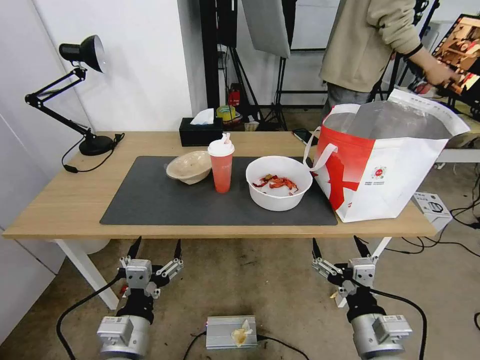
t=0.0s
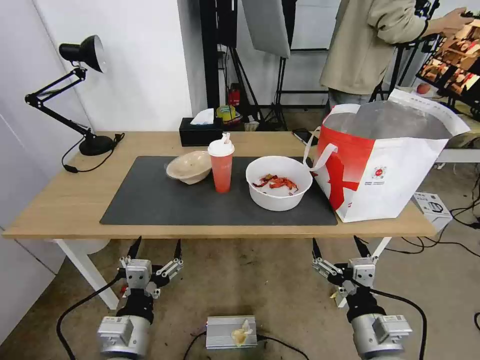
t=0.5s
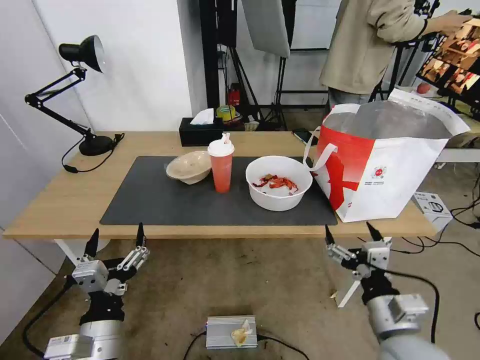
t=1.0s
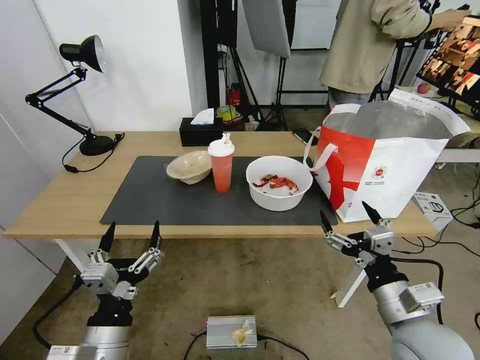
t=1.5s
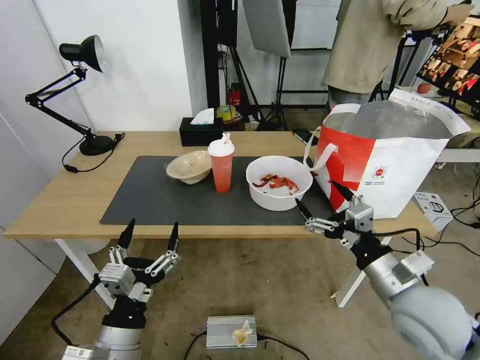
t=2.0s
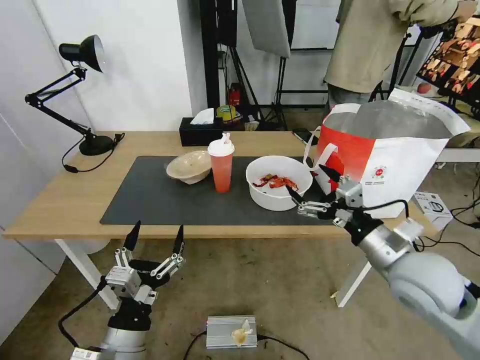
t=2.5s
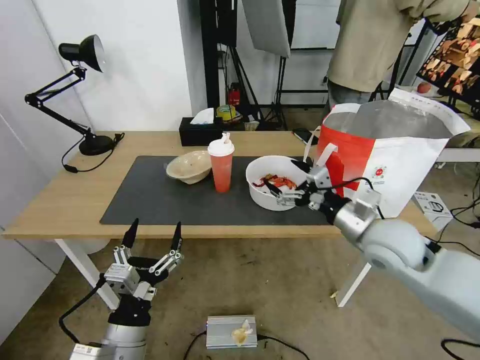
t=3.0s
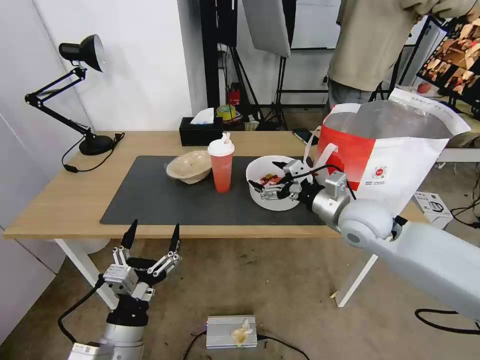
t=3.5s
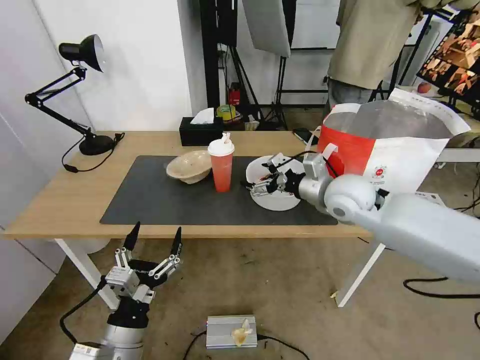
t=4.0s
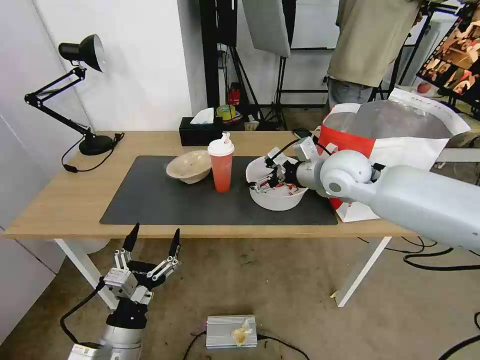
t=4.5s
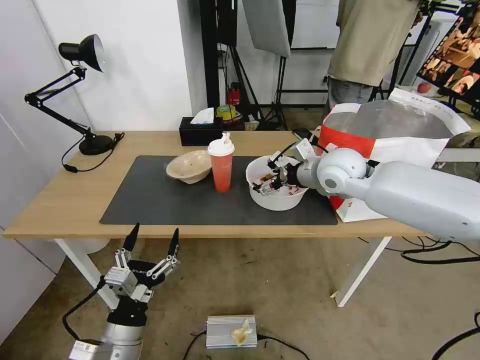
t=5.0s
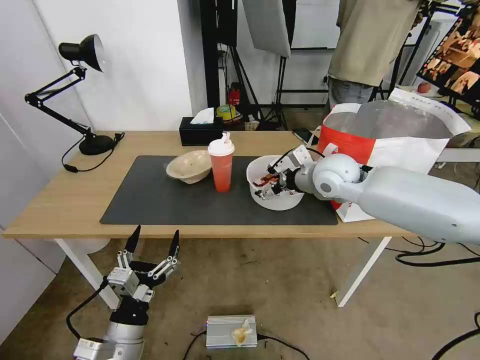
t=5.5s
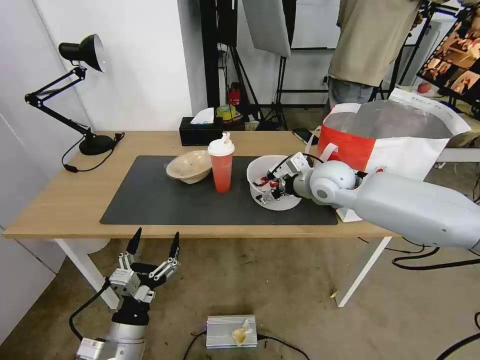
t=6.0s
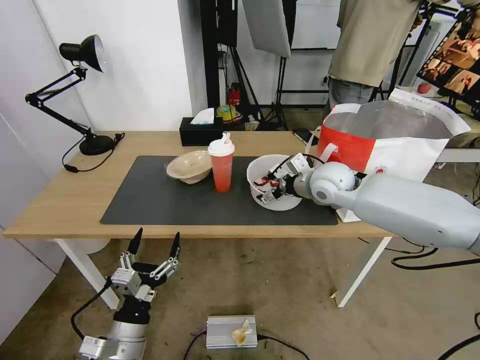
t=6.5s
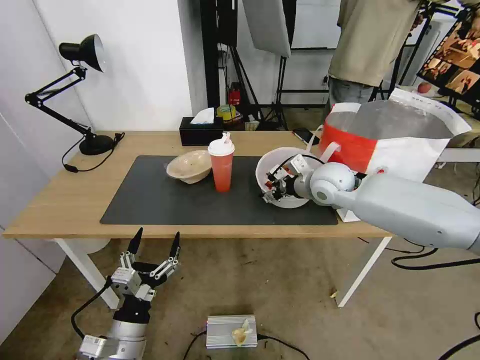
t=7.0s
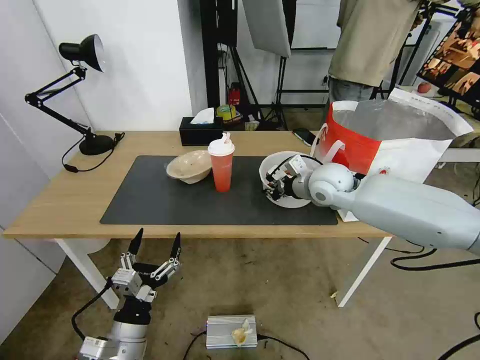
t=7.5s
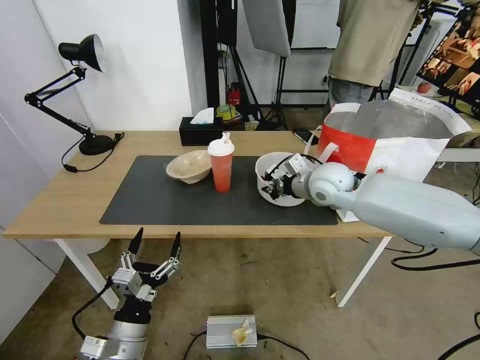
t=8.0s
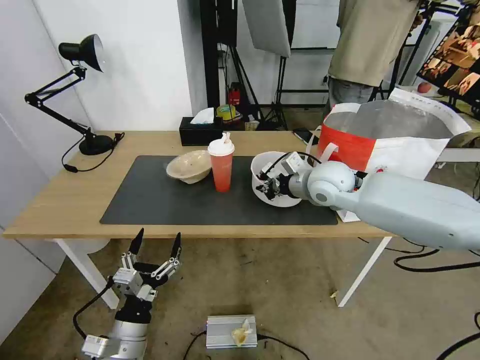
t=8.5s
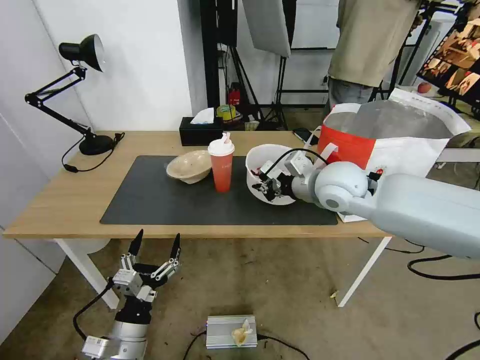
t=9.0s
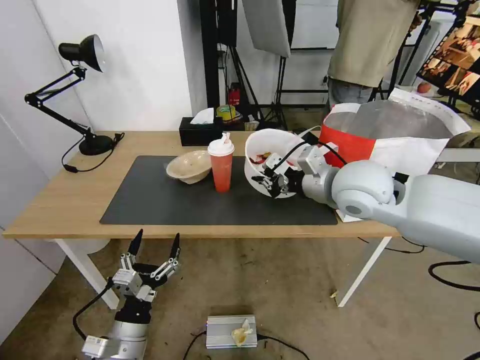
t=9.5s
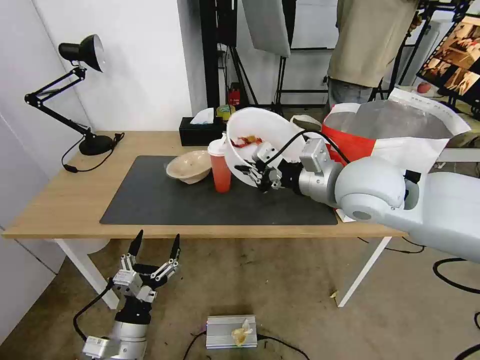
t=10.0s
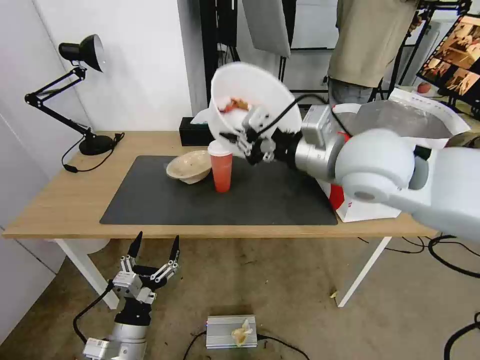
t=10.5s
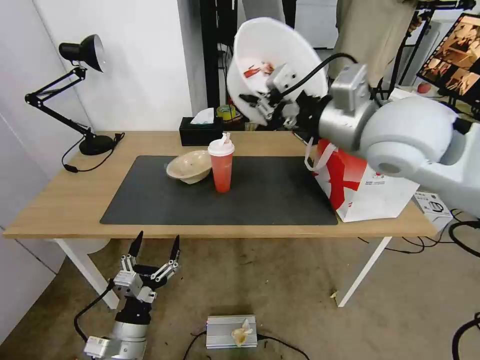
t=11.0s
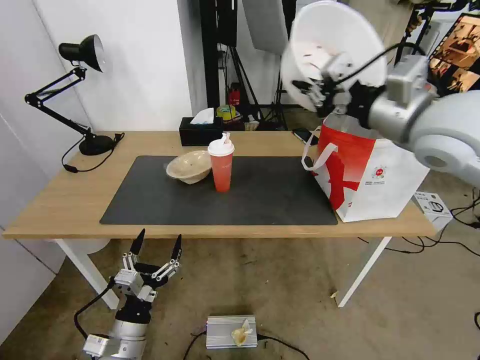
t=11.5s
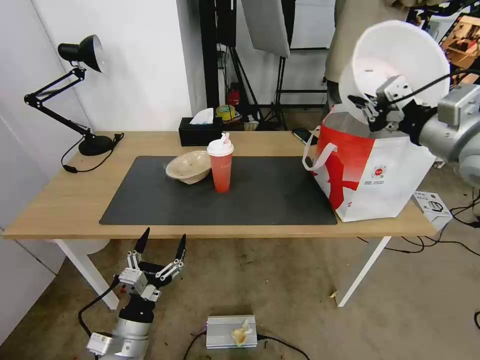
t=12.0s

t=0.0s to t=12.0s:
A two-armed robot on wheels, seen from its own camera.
Task of the whole recording: Pick up the trash from the table and place it into the takeout bag.
t=2.0s to t=4.0s: The right gripper shifts roughly 20 cm forward.
t=4.0s to t=6.0s: The right gripper heads forward, covering about 5 cm.
t=6.0s to t=8.0s: The right gripper closes.
t=8.0s to t=10.0s: The right gripper shifts about 15 cm backward and upward.
t=10.0s to t=12.0s: The right gripper heads to the right, covering some 15 cm.

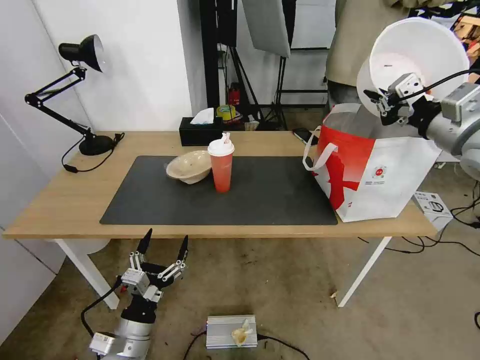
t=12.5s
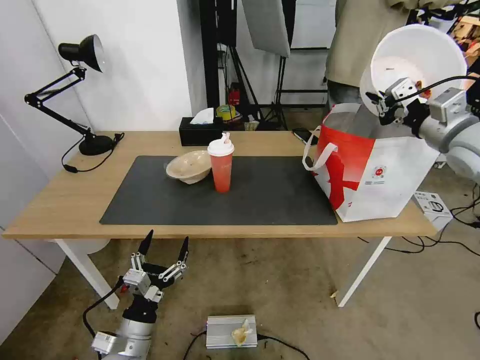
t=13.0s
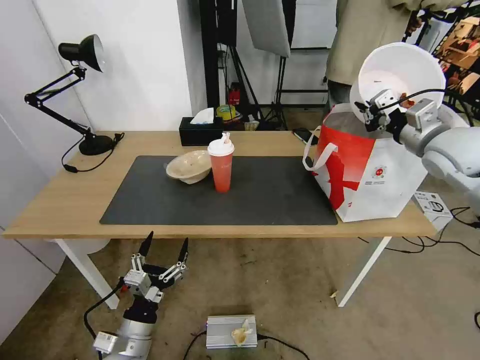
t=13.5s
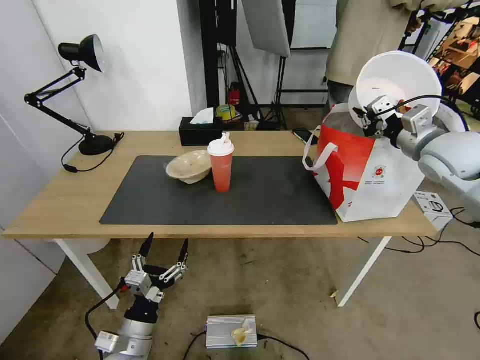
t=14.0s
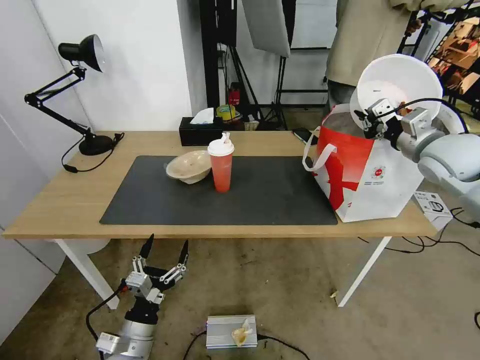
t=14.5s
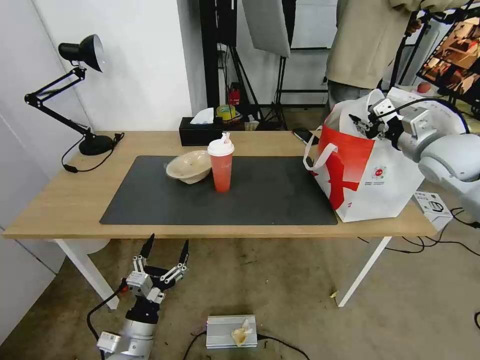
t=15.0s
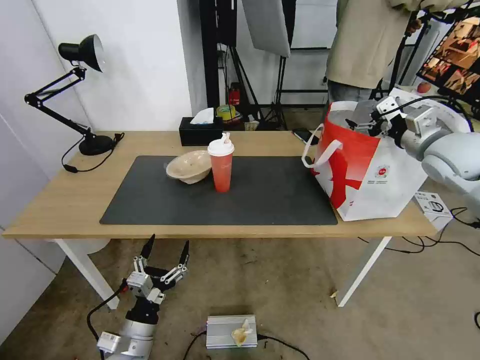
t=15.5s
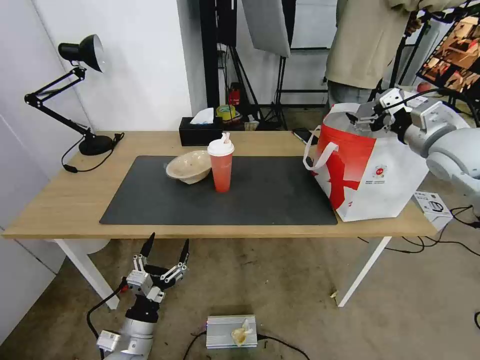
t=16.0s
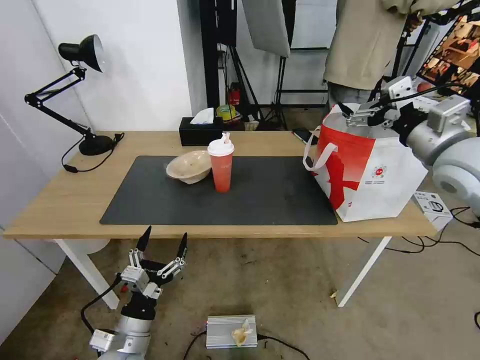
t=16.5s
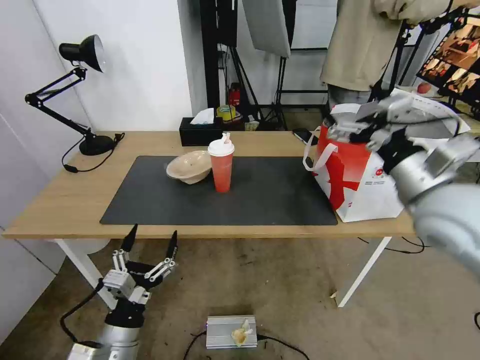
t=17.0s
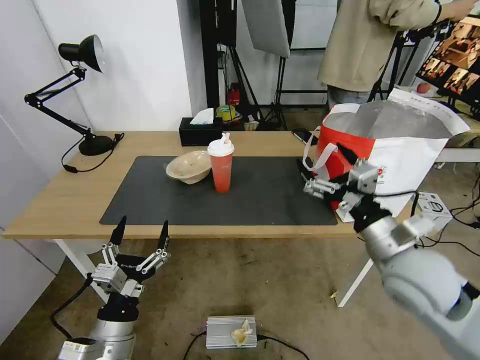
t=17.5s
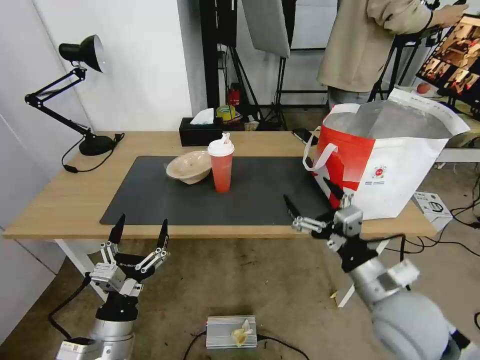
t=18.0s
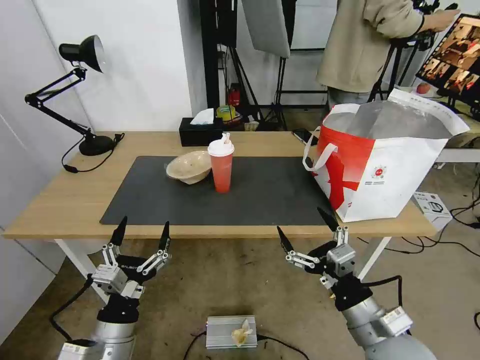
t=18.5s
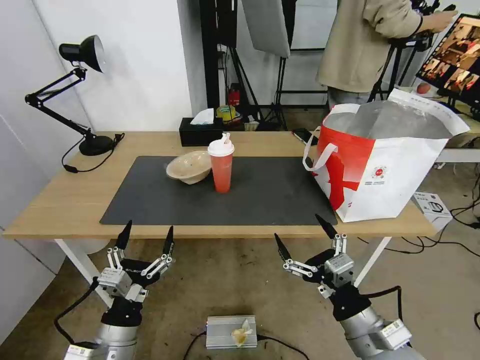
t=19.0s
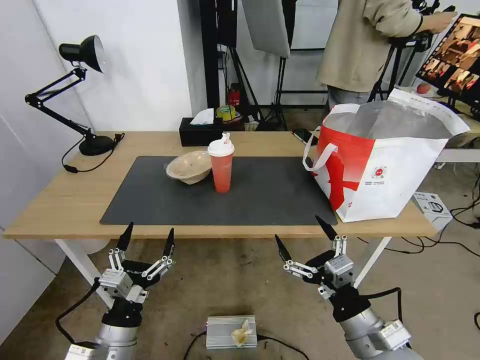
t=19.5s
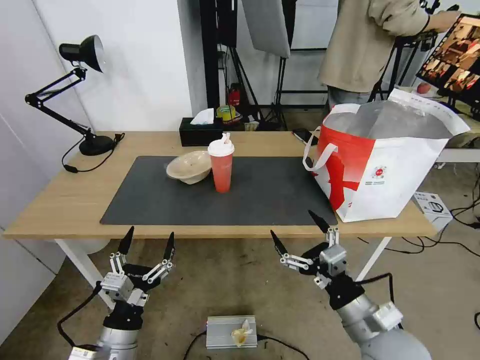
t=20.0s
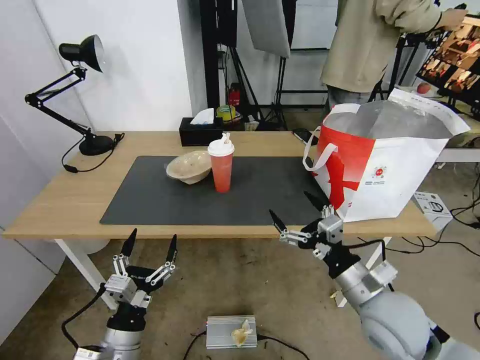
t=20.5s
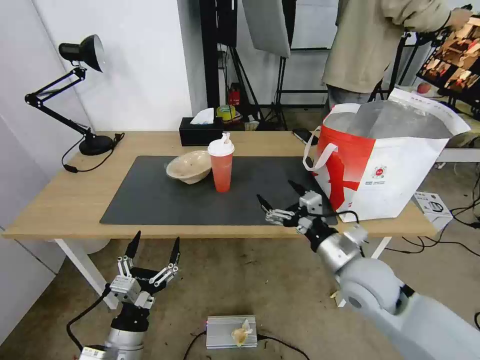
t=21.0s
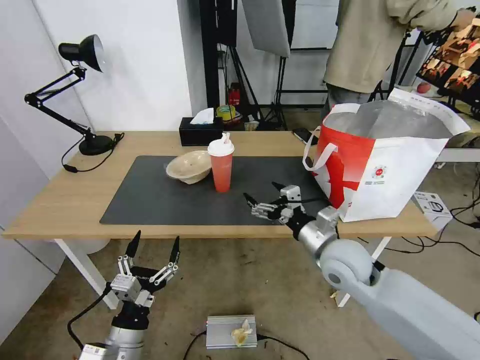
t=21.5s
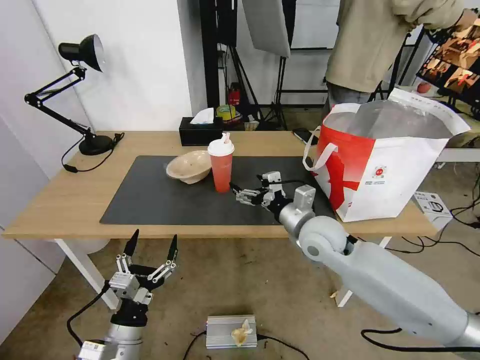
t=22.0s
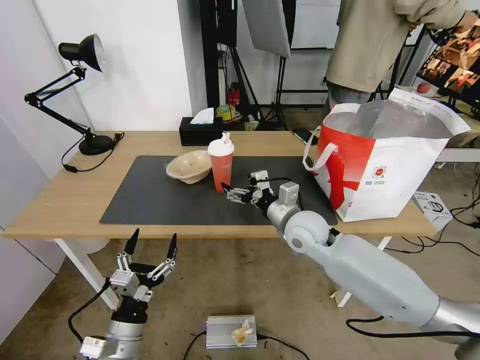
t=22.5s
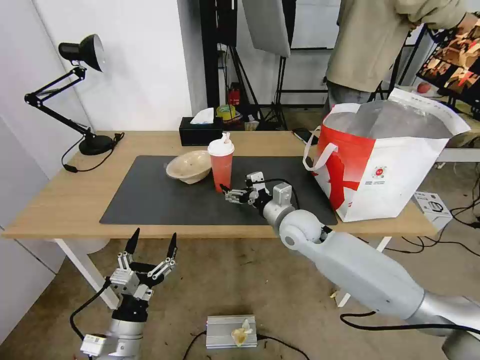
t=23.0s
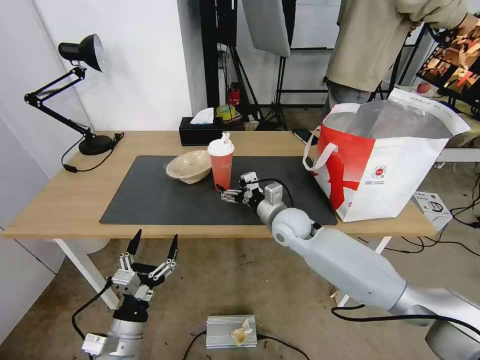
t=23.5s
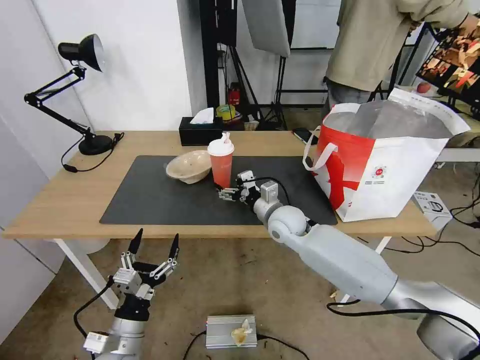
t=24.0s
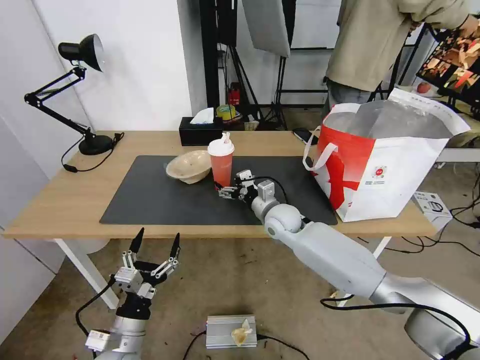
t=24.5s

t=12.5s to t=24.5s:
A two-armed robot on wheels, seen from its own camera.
Task of the whole recording: Pick up the trash from the table and place it into the takeout bag.
t=12.5s to t=14.5s: The right gripper is displaced forward and downward by roughly 10 cm.
t=14.5s to t=16.5s: The right gripper moves backward, roughly 10 cm, and opens its fingers.
t=16.5s to t=18.5s: The right gripper moves backward, downward and to the left, roughly 35 cm; the left gripper heads upward, covering roughly 5 cm.
t=18.5s to t=20.5s: The right gripper travels forward by about 5 cm.
t=20.5s to t=22.5s: The right gripper shifts some 20 cm forward and to the left.
t=22.5s to t=24.5s: The right gripper is displaced forward and downward by about 10 cm.

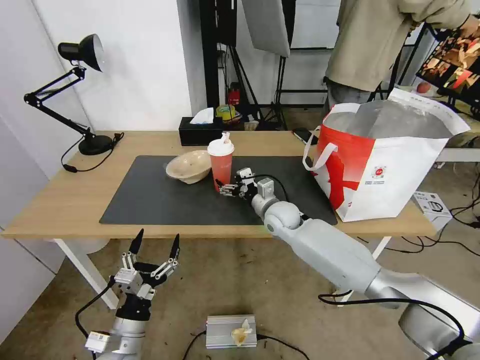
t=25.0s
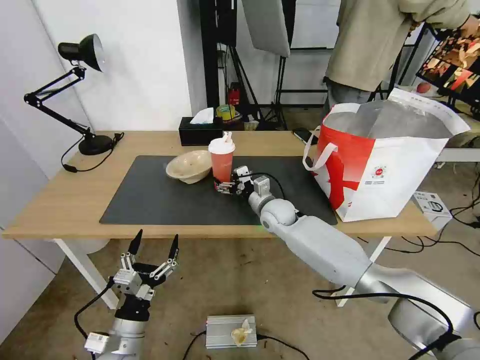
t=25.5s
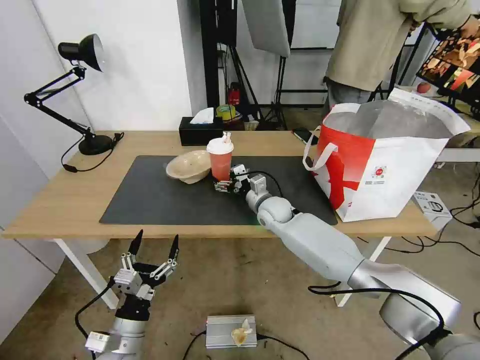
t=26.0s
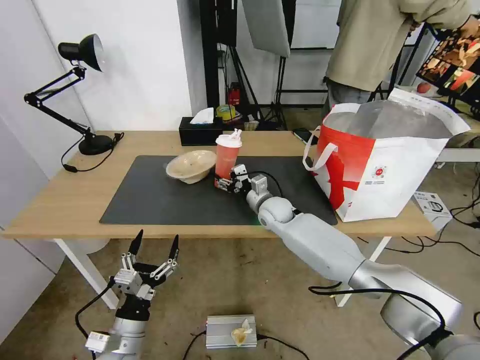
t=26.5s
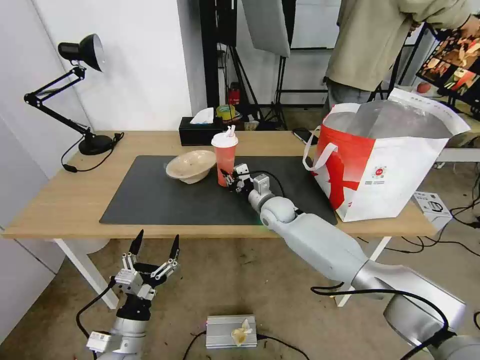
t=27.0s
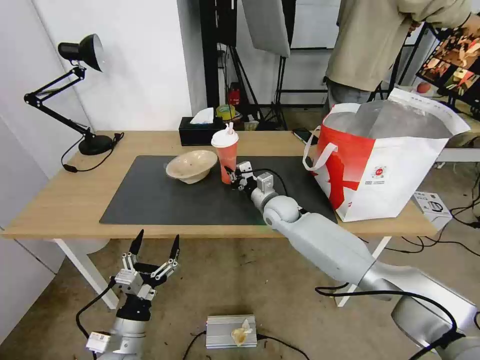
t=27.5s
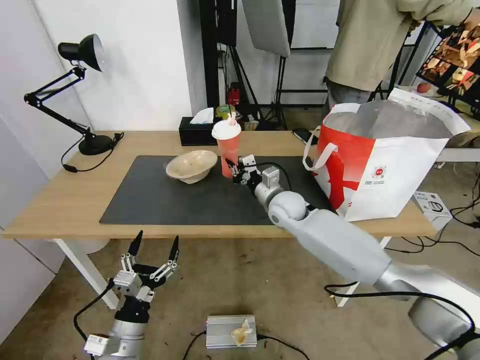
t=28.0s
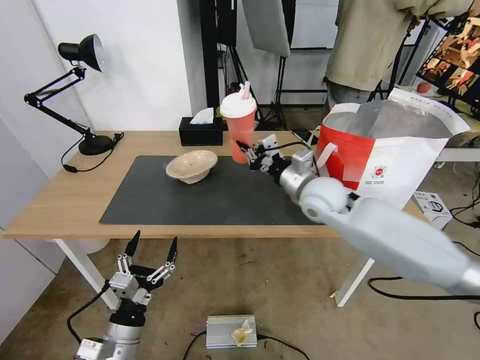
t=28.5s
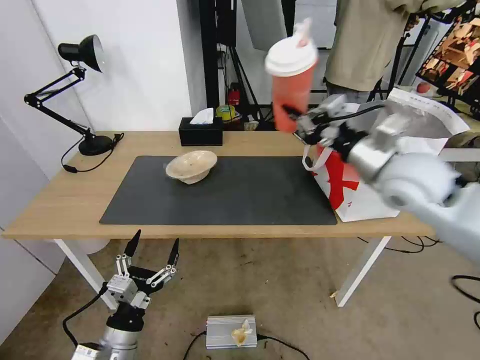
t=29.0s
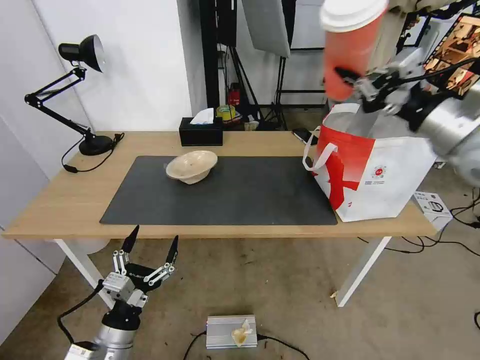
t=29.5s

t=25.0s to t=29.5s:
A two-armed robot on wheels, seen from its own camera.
Task of the whole recording: Pick up the trash from the table and place it into the takeout bag.
t=25.0s to t=27.0s: The right gripper closes up.
t=27.0s to t=29.5s: The right gripper moves upward, to the right and backward, about 40 cm.
